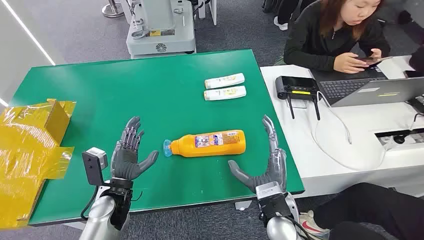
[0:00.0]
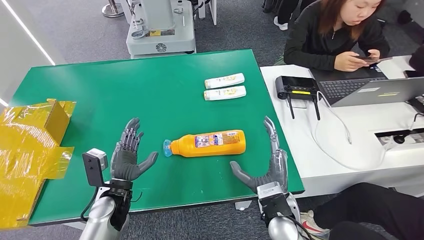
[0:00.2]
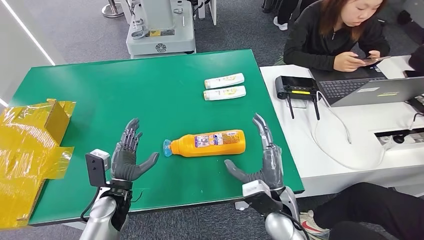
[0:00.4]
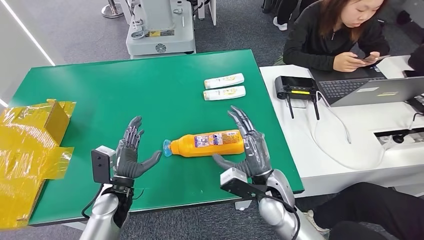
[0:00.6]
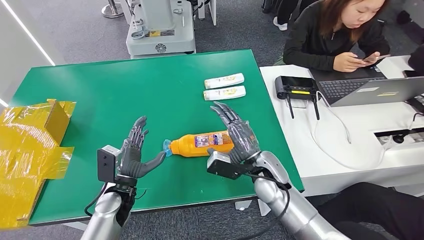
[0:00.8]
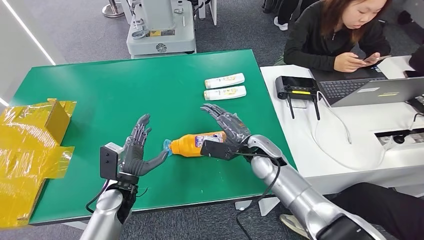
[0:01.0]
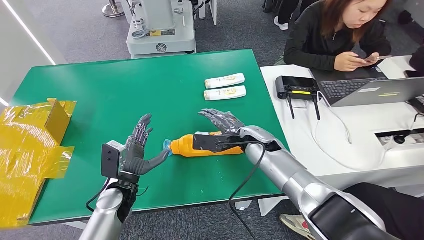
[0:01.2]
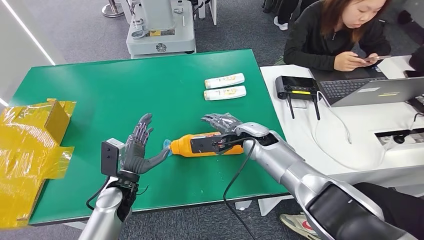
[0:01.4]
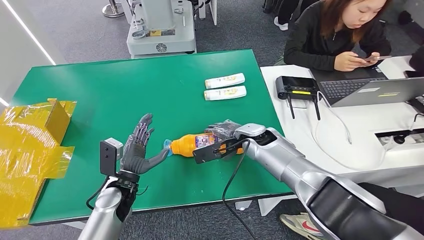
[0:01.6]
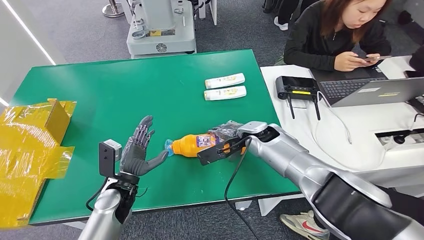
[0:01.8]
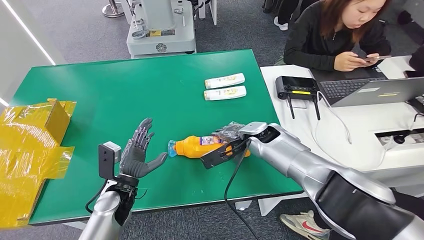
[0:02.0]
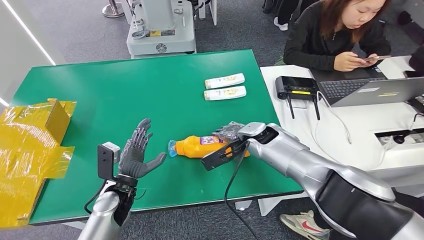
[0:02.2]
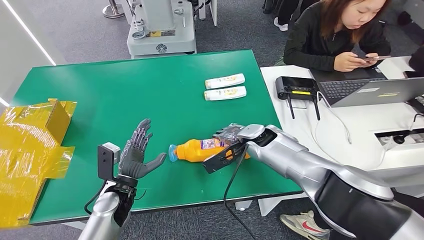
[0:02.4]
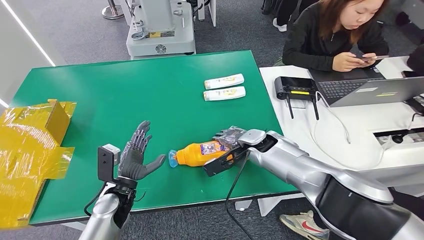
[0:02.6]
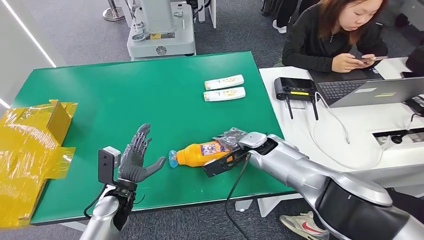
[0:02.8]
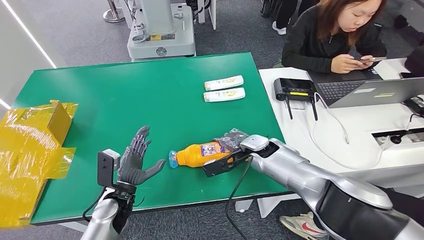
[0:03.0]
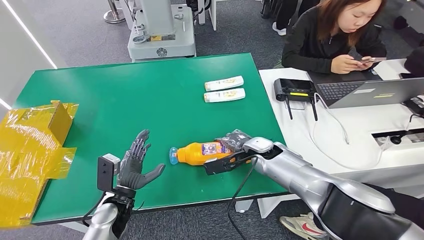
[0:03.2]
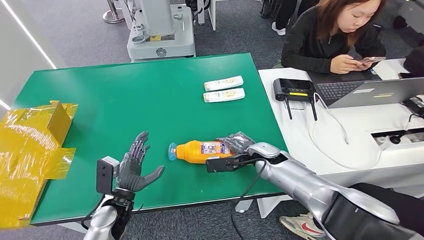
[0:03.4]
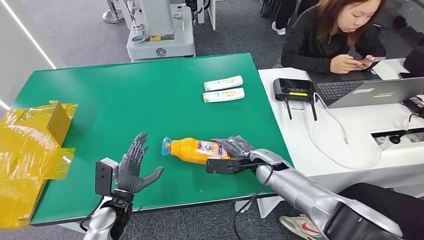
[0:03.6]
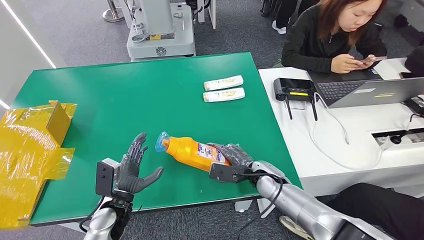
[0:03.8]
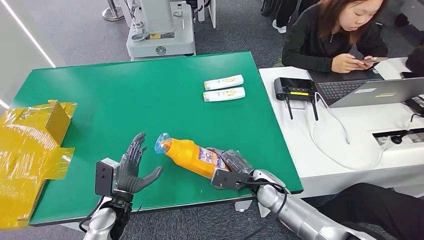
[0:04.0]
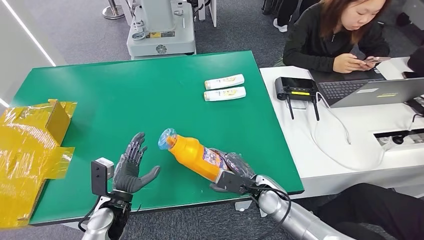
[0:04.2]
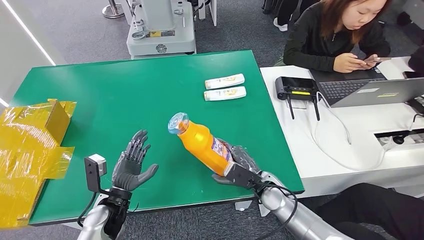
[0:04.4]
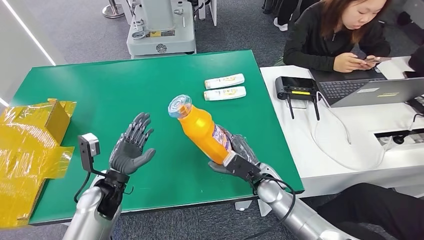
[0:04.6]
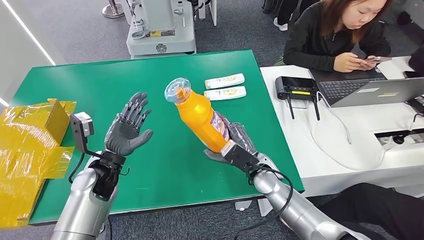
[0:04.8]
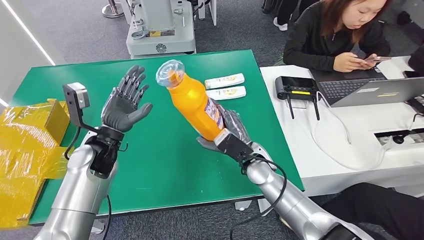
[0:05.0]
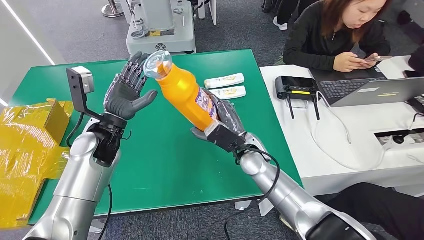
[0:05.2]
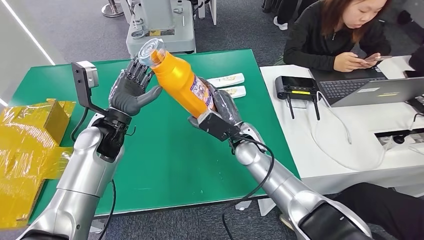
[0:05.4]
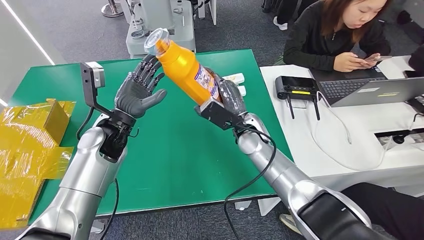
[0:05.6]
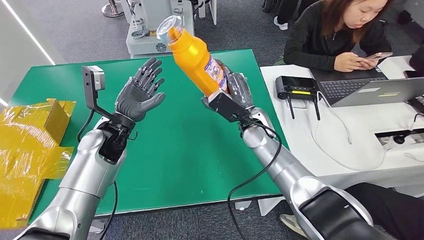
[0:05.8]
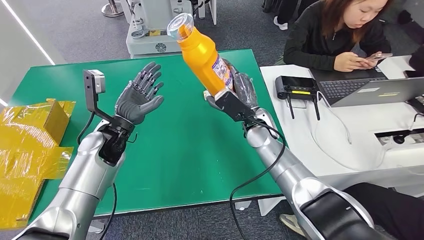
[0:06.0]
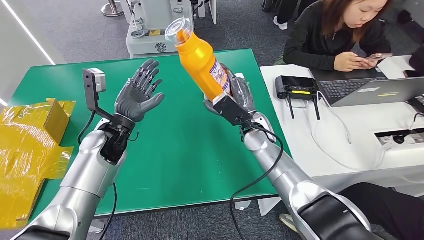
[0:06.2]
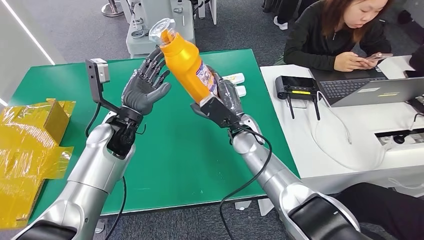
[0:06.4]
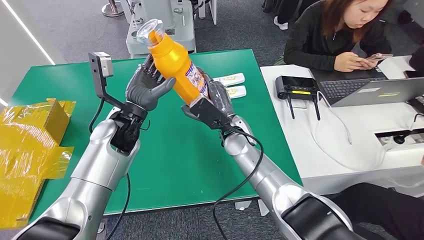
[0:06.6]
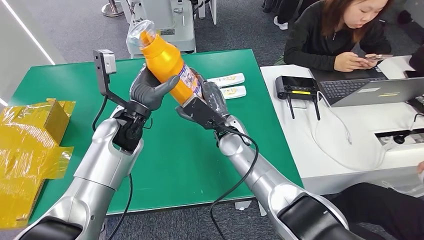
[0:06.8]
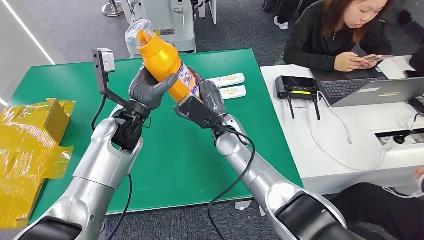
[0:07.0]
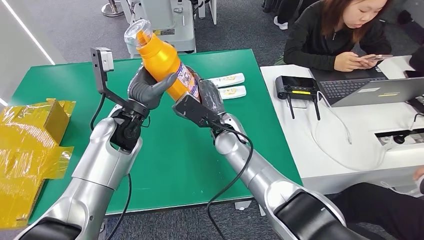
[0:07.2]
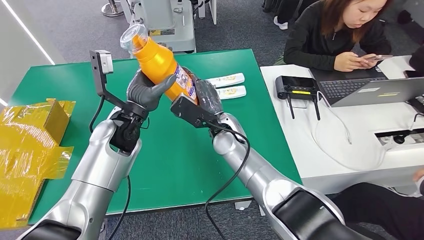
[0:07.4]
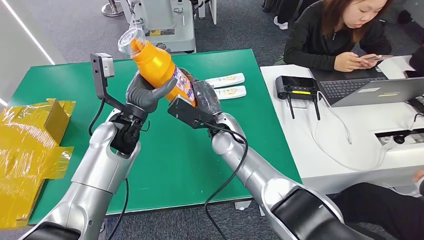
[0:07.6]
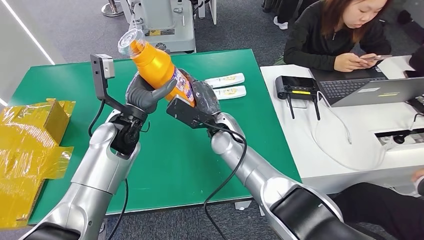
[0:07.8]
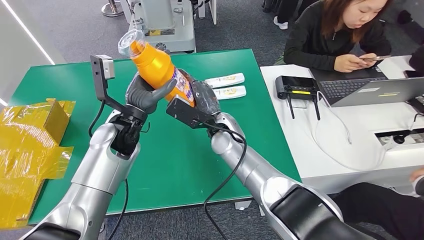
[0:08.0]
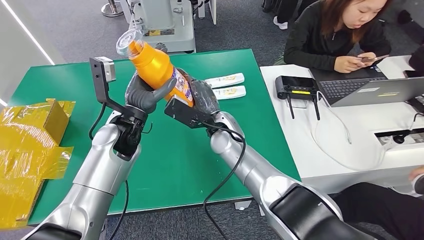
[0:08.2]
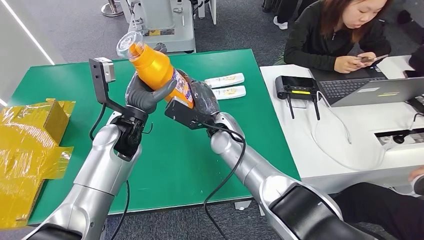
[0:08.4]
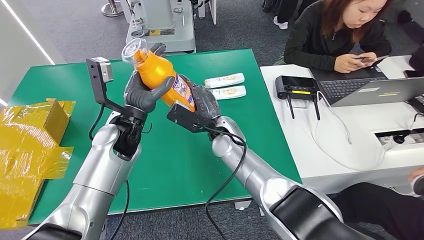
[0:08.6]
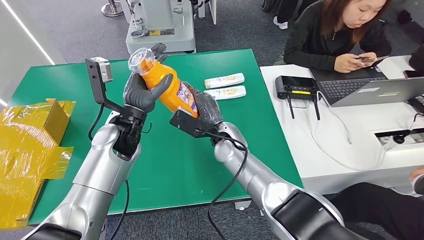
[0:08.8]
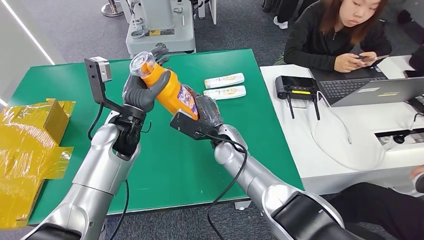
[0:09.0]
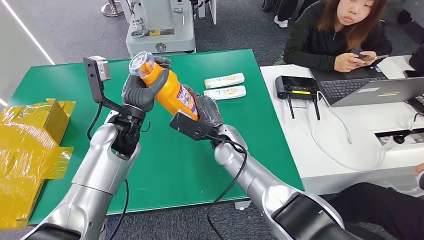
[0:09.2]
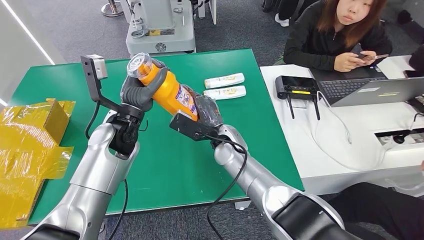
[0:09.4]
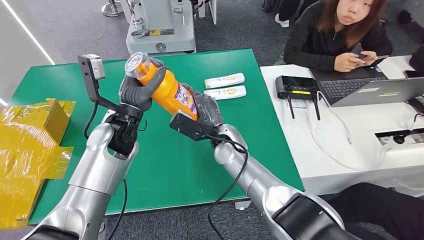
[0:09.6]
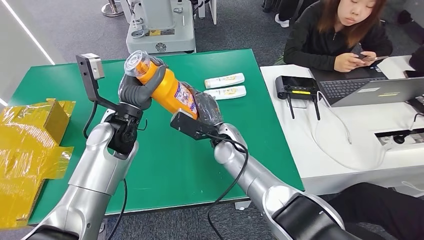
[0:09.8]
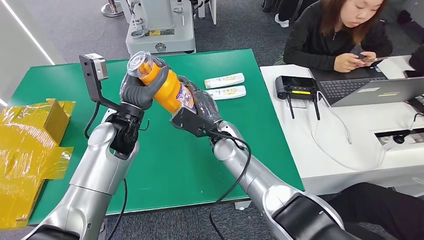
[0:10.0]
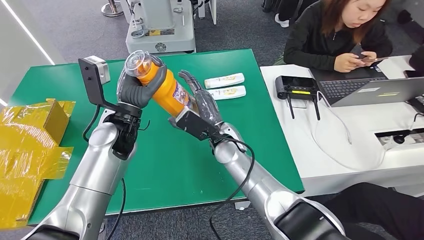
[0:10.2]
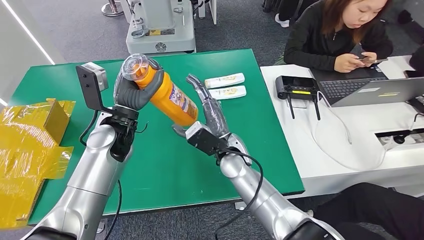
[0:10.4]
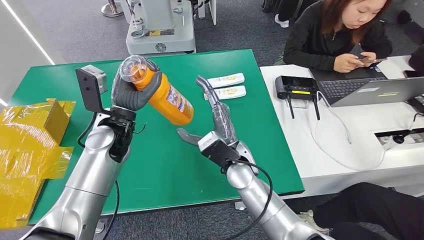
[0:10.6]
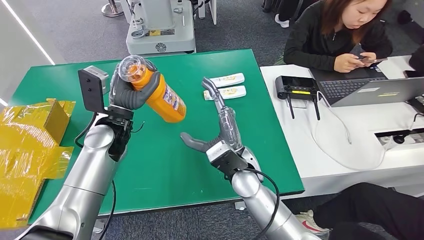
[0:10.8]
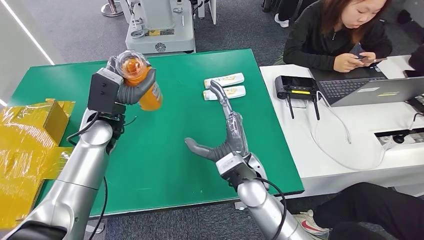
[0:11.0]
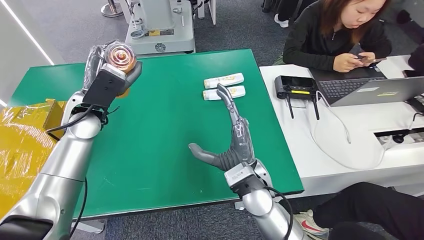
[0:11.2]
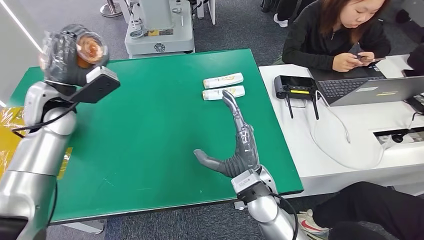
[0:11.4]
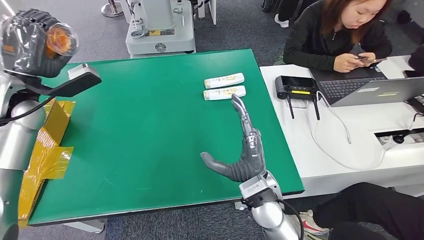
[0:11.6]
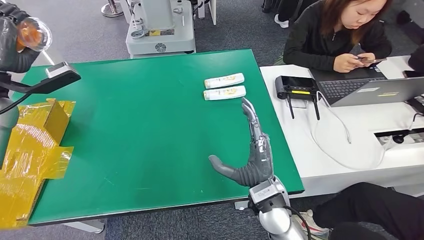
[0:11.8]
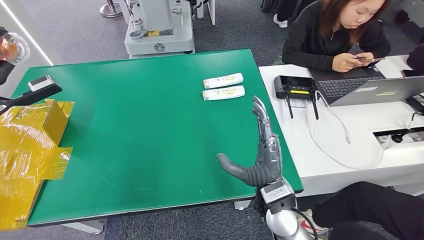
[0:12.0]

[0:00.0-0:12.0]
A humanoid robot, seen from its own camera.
Step, 0:00.0 to 0:04.0: Pick up the bottle from the table.
0:07.6 to 0:09.0: There are only small adjustments of the hands.

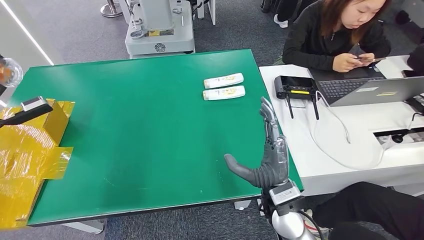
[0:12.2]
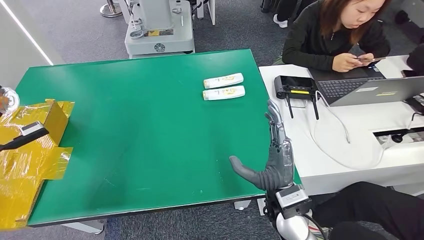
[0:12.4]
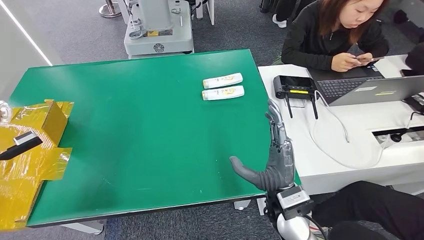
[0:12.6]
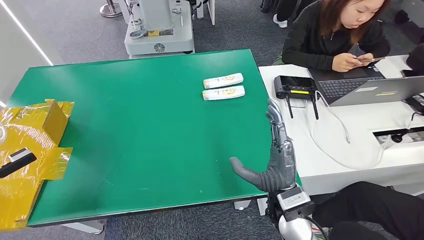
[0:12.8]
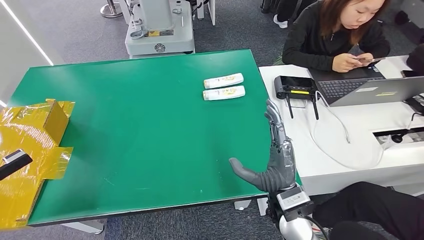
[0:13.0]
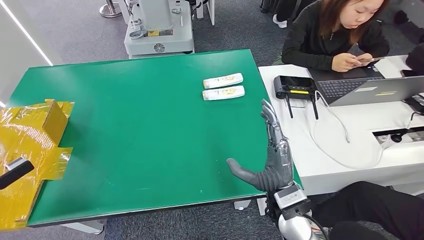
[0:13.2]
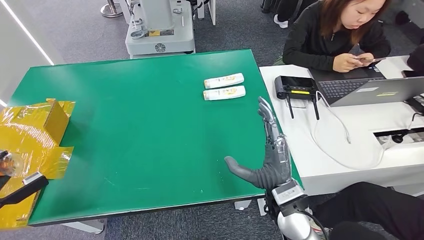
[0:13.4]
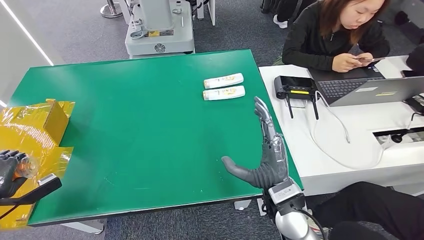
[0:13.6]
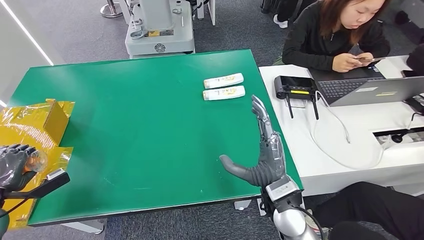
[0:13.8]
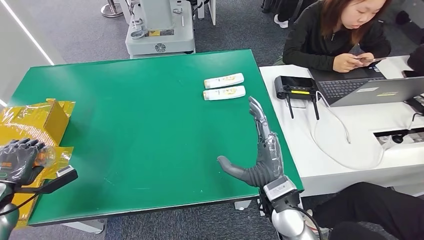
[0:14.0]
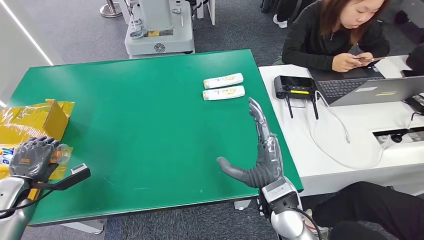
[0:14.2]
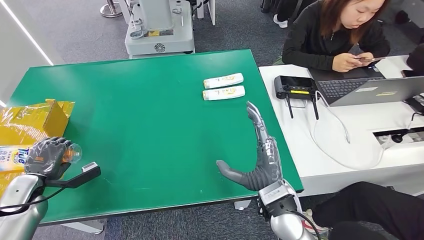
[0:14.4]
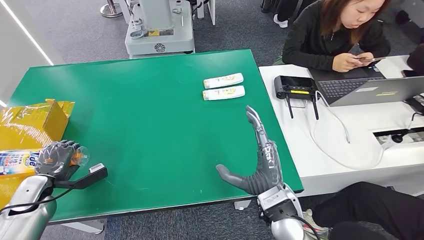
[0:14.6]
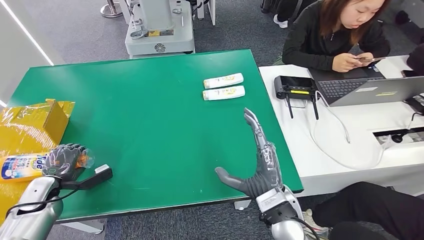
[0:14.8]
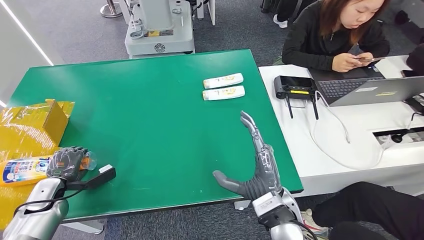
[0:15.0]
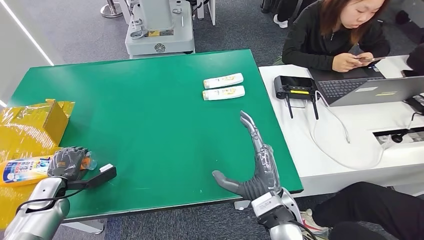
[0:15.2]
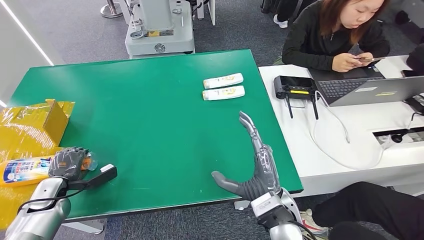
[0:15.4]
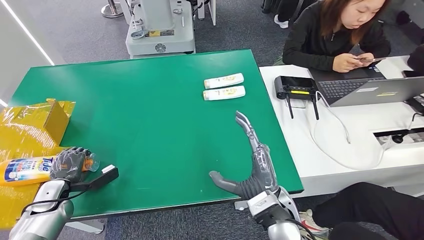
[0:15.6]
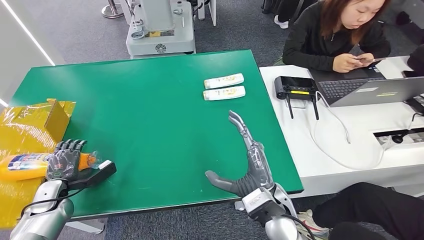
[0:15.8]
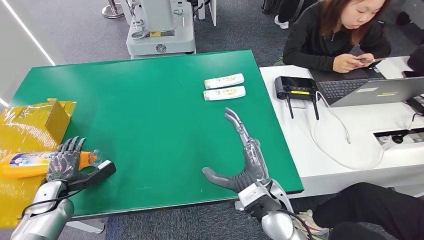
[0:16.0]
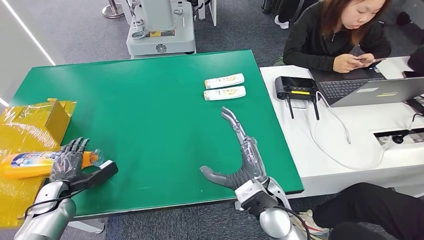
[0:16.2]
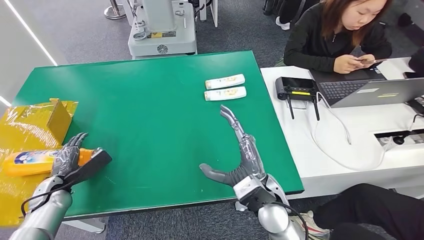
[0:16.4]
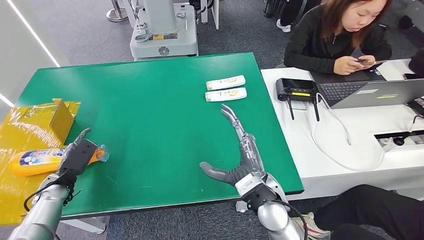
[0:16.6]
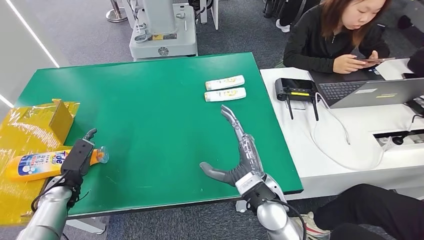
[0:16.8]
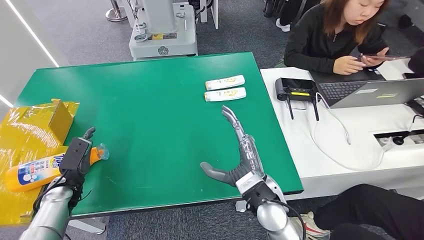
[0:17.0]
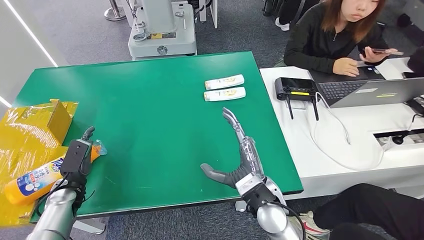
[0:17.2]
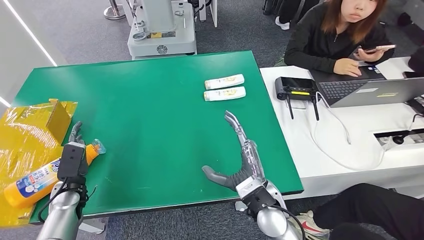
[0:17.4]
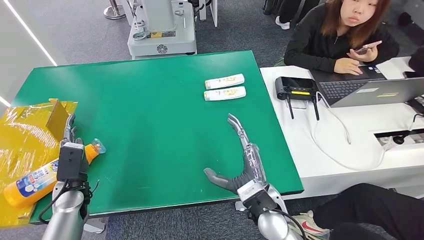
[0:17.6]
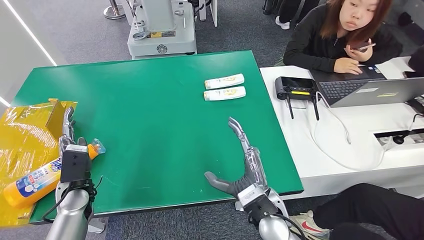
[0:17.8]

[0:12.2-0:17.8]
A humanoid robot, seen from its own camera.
Step, 0:12.2 to 0:17.8: Turn the bottle to the front side.
0:12.2 to 0:13.6: The left hand moves downward and backward, roughly 20 cm.
0:13.6 to 0:15.0: The left hand goes some 10 cm to the right and downward.
0:16.4 to 0:17.8: The left hand travels to the right by about 10 cm.
